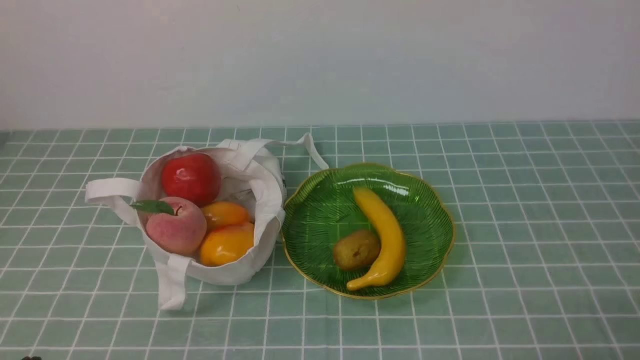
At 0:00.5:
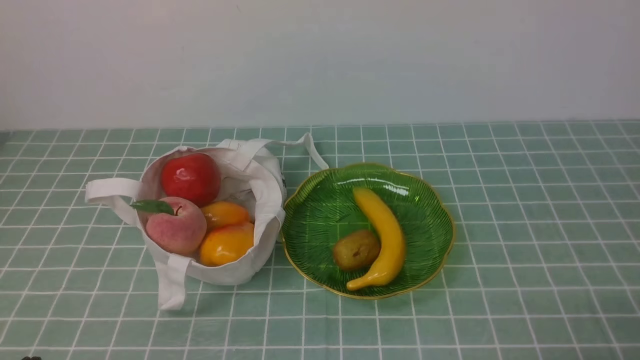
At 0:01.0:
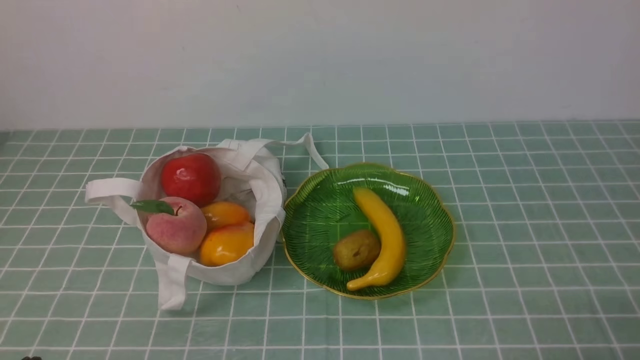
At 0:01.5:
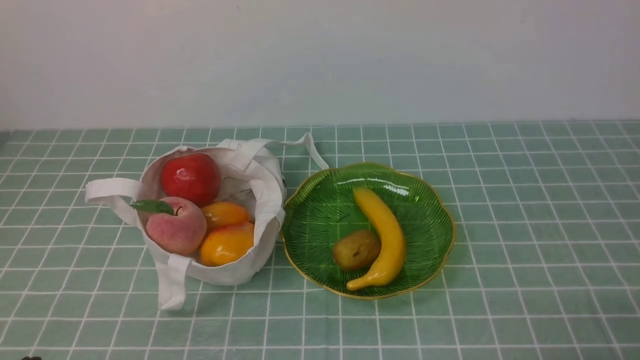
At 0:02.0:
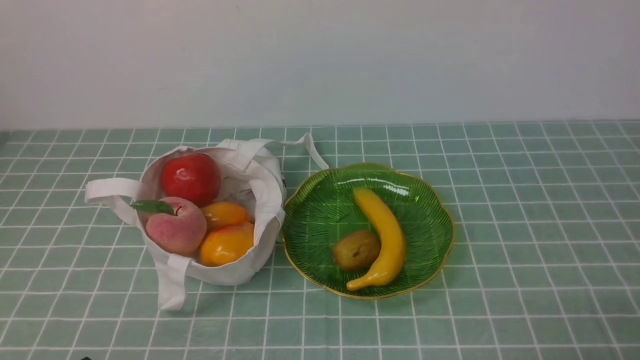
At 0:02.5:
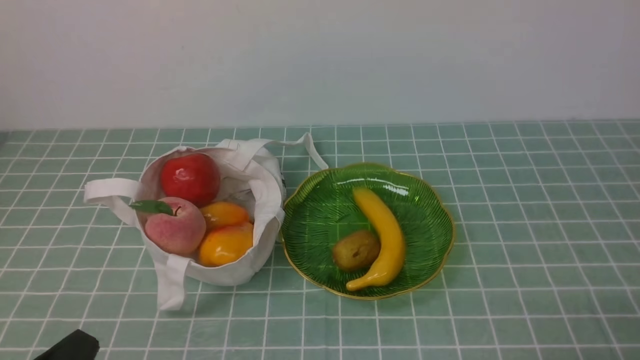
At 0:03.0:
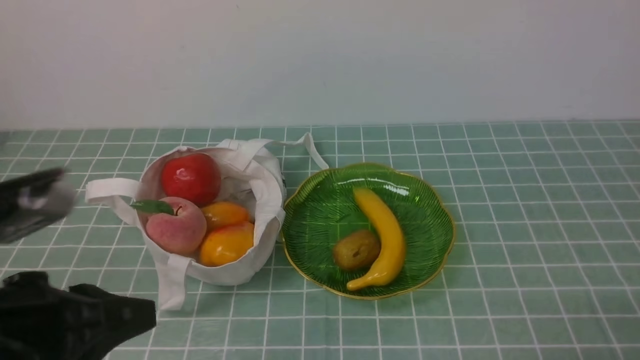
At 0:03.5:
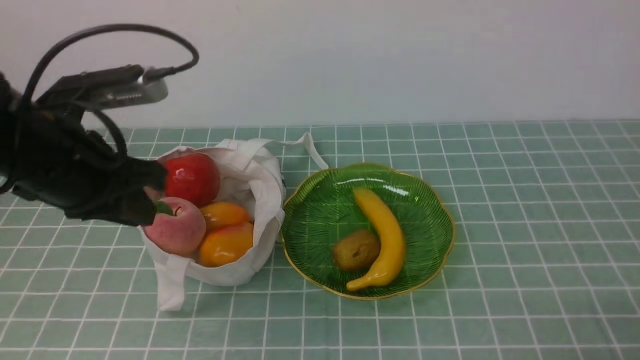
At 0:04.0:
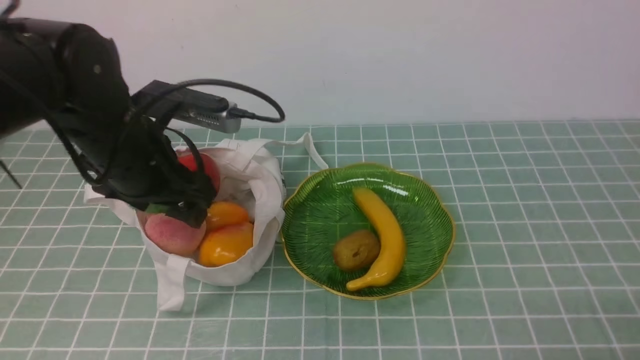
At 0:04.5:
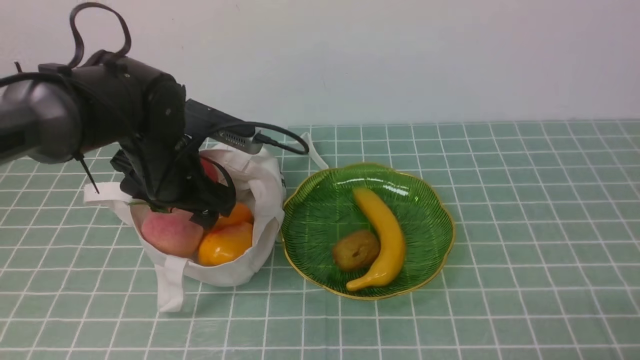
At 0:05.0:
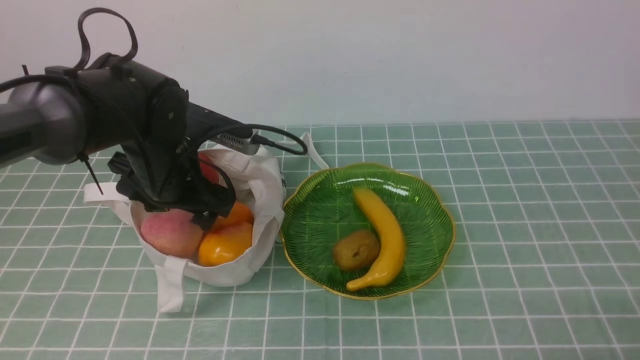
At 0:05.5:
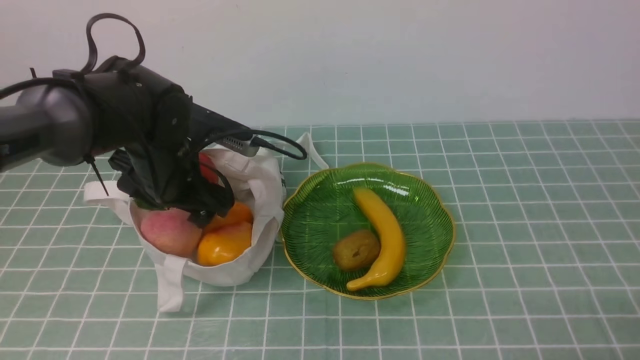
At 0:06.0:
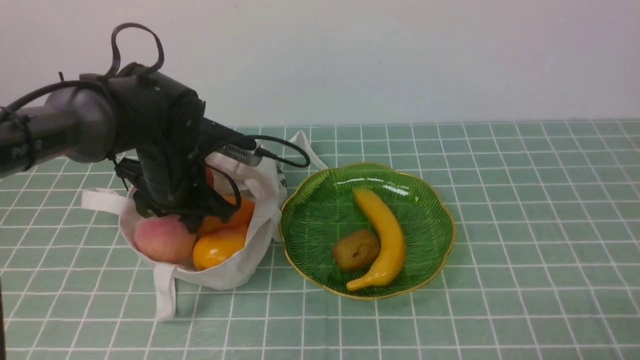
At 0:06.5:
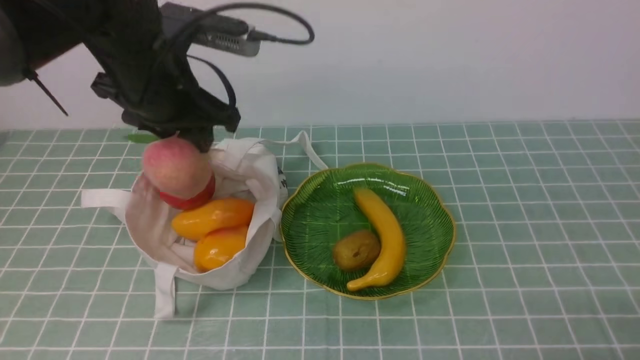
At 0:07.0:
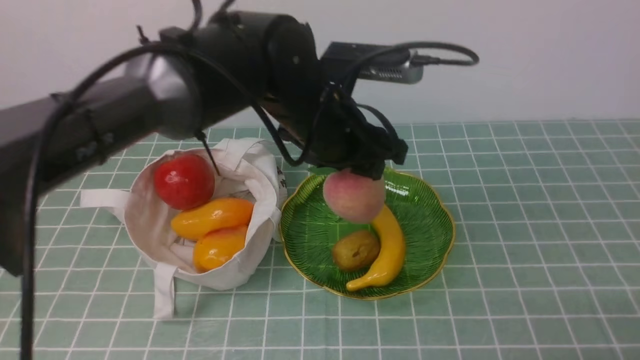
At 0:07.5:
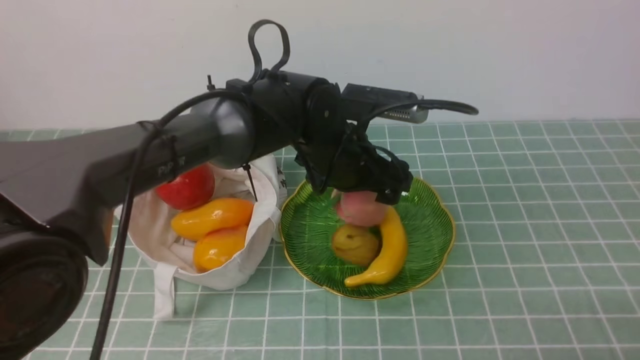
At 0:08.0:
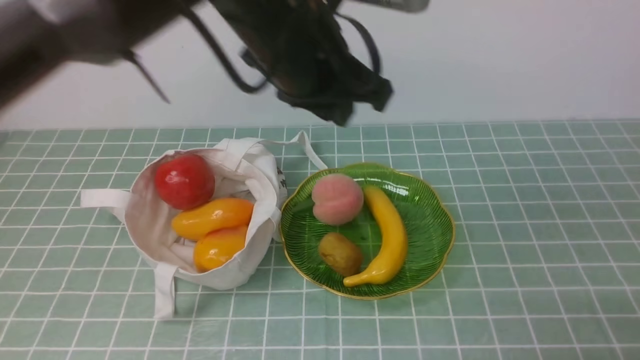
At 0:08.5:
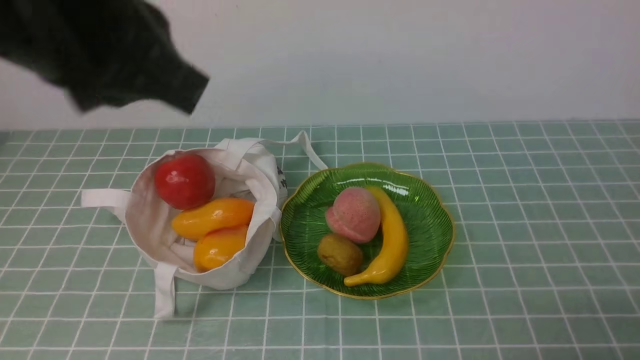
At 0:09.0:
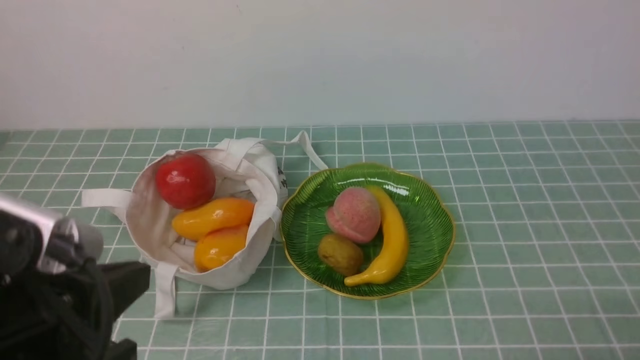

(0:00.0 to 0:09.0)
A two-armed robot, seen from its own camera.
Step, 0:00.0 - 0:06.0: use the left arm to grab a peach from the bag.
Step, 0:06.5 - 0:07.5: use the left arm to put the peach into the empty plate on the right.
0:02.0 - 0:04.5: The left gripper travels forward by some 30 cm, and opens its fingers.
0:04.5 - 0:07.0: The left gripper heads to the right and upward, covering roughly 15 cm, and closes.
0:07.0 - 0:09.0: The left gripper shifts roughly 30 cm backward and to the left, and closes up.

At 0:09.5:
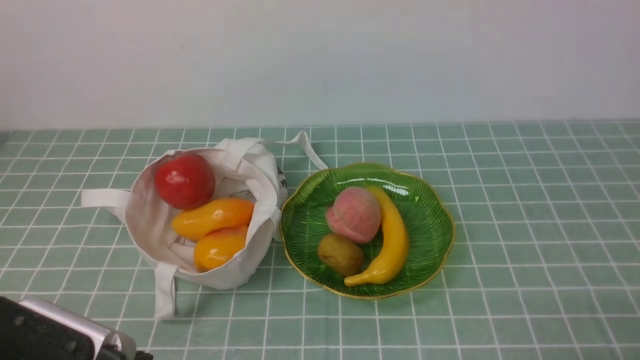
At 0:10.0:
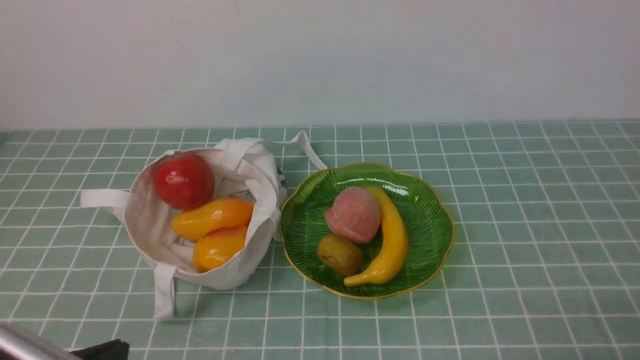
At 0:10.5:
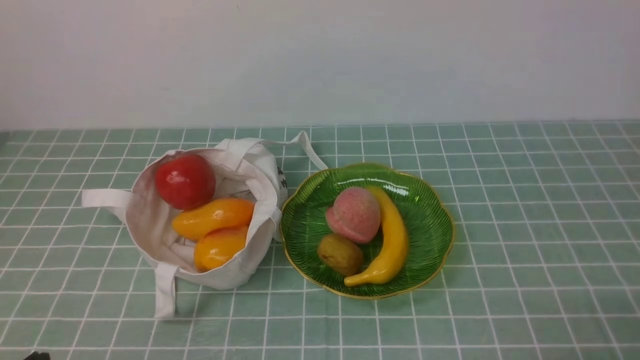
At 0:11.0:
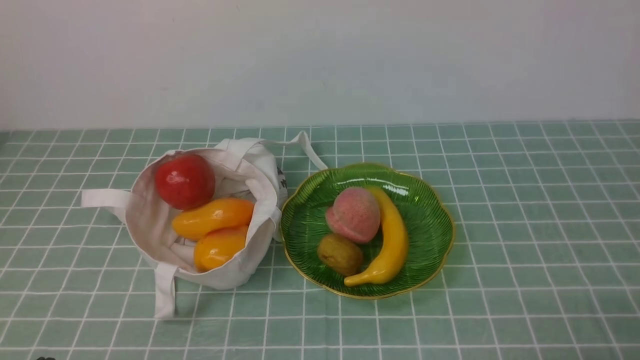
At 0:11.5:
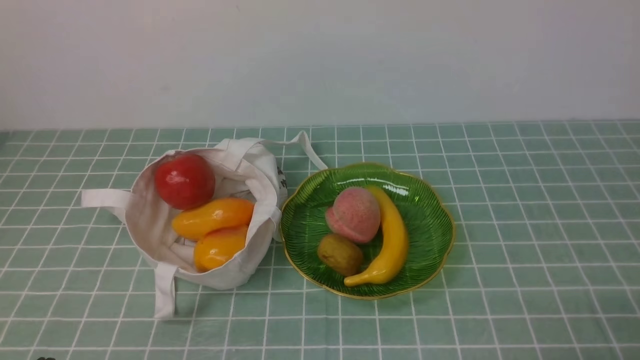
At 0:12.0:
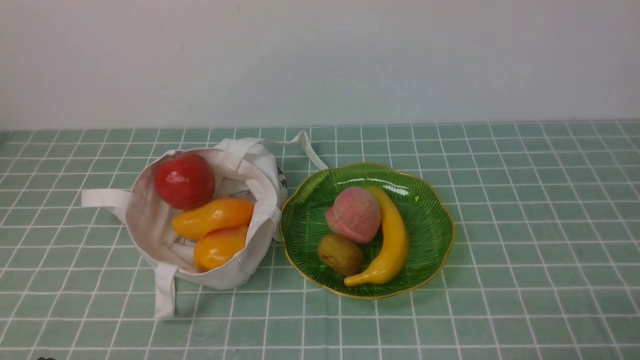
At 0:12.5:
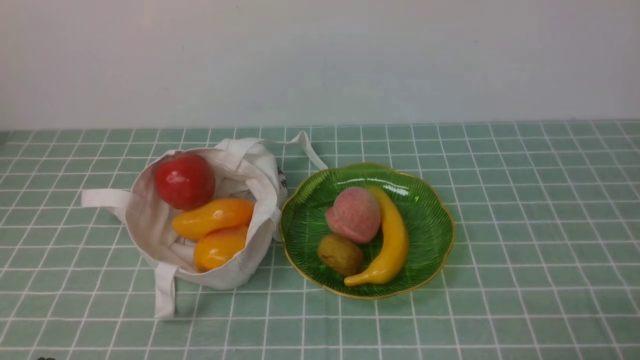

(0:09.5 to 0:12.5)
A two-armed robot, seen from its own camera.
0:09.5 - 0:11.0: The left gripper goes some 10 cm downward and to the left.
0:11.0 - 0:12.5: Both grippers stay put.

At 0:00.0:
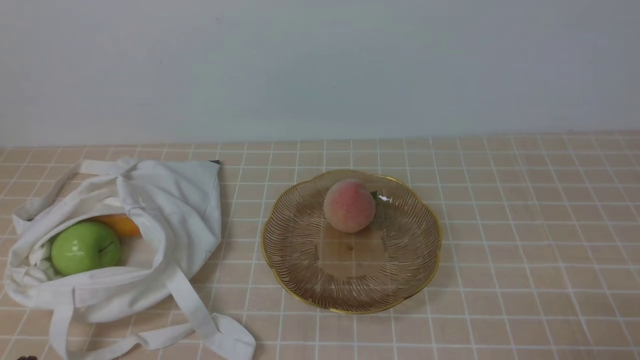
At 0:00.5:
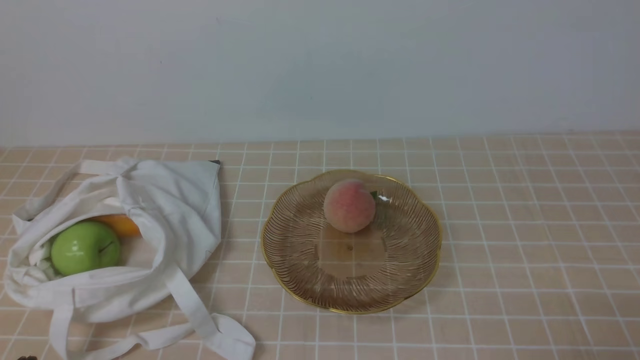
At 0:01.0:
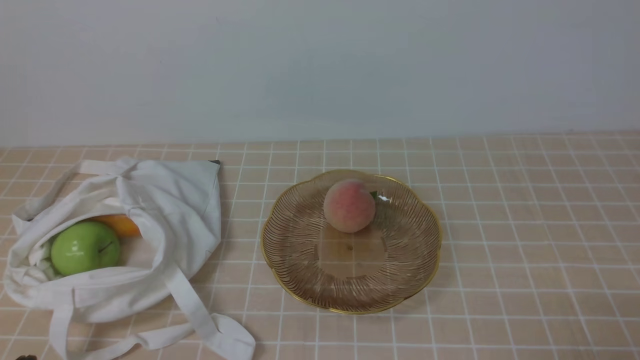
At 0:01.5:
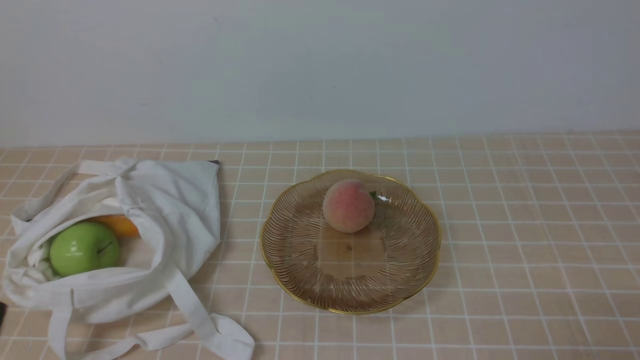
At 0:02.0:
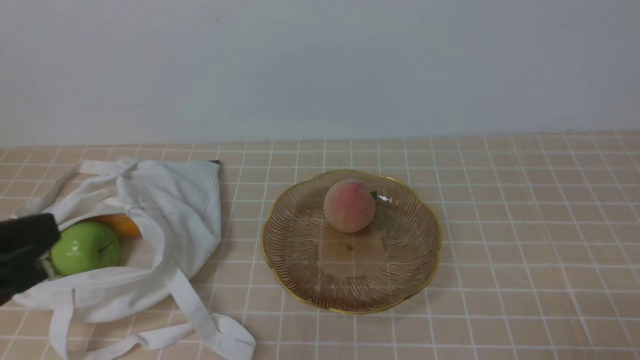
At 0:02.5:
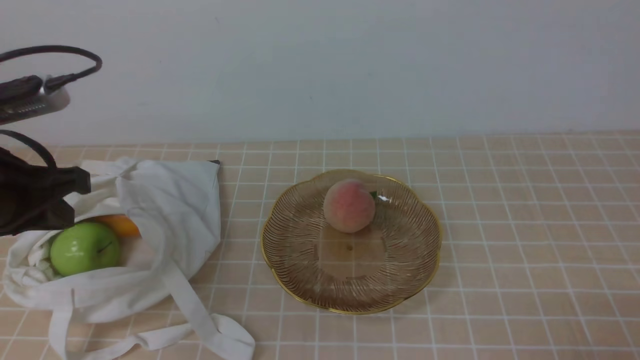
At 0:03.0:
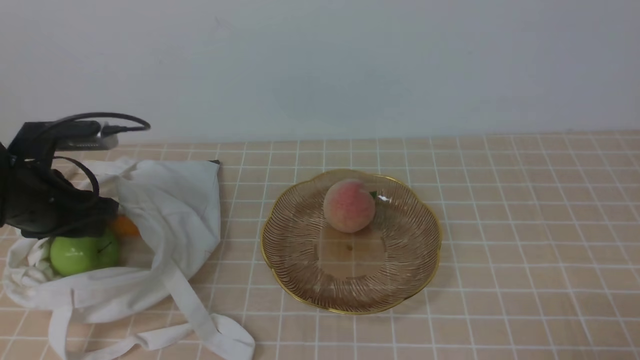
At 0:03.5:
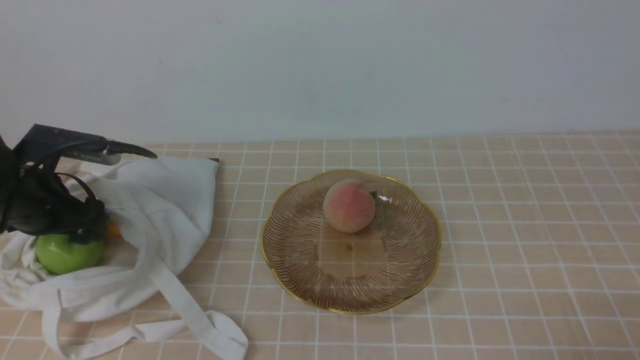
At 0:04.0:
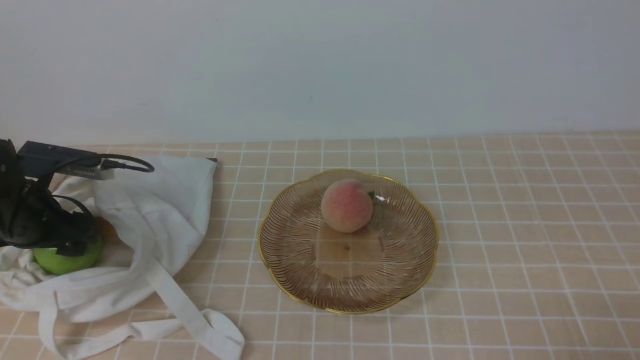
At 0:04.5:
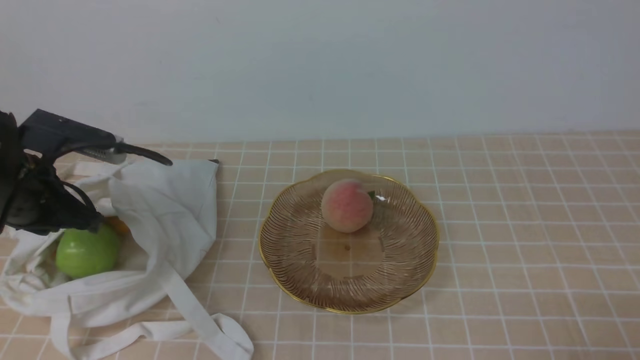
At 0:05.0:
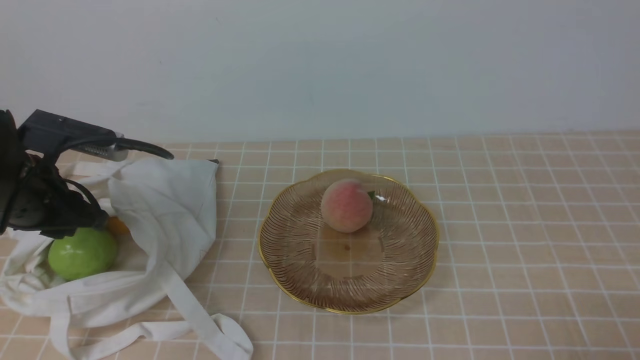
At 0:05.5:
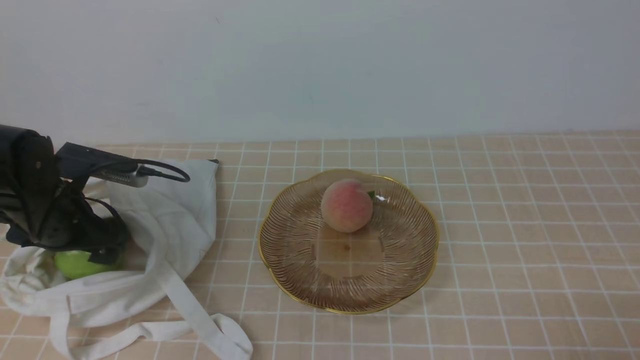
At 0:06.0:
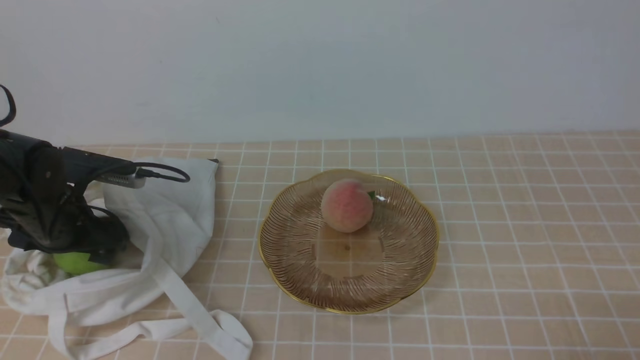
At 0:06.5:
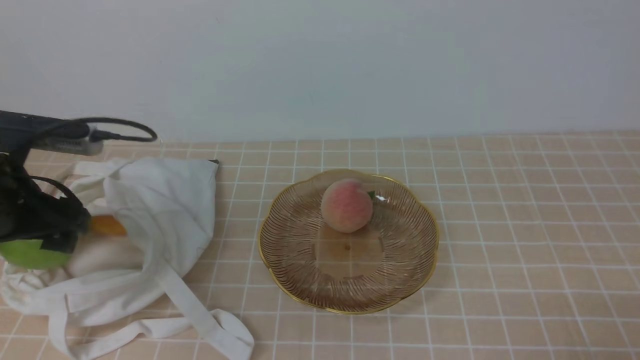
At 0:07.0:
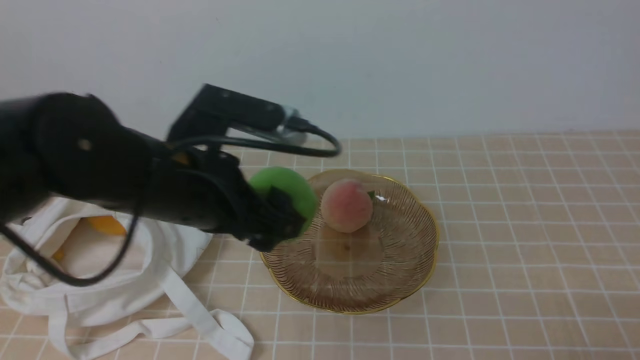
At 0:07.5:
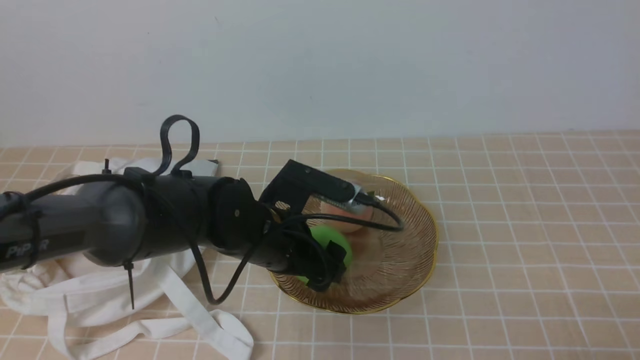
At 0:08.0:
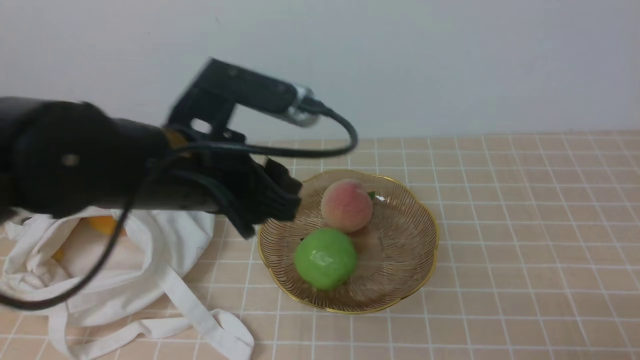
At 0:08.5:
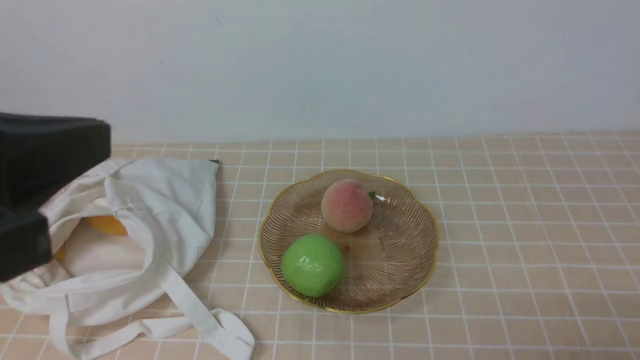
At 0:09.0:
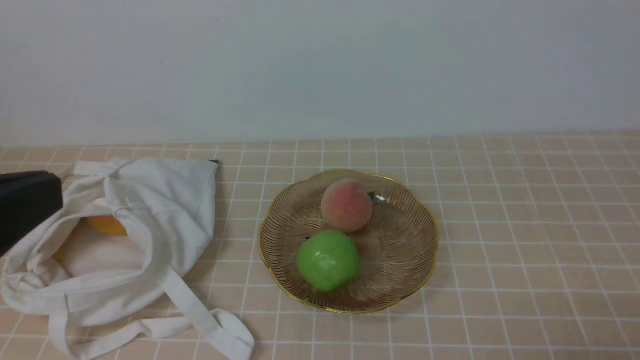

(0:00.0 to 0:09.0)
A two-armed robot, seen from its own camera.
Step, 0:00.0 - 0:06.0: use the left arm to grab an apple from the bag.
Step, 0:06.5 - 0:07.5: use the left arm to put the apple into the empty plate on the right.
0:02.0 - 0:04.5: The left gripper goes roughly 25 cm forward and downward, and opens, then closes again.
0:04.5 - 0:07.0: The left gripper shifts approximately 15 cm to the right, upward and backward, and opens up.
0:07.0 - 0:09.0: The left gripper heads backward and upward, covering about 20 cm, and closes its fingers.
